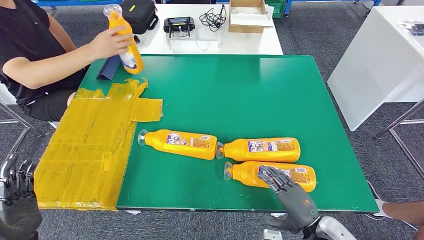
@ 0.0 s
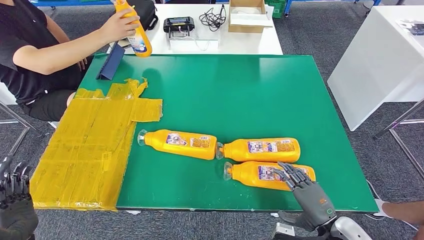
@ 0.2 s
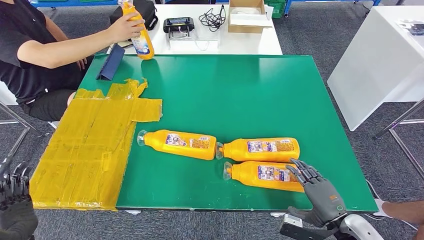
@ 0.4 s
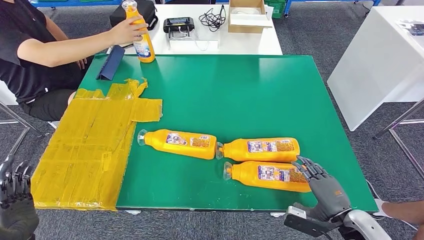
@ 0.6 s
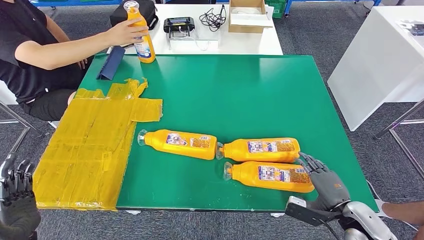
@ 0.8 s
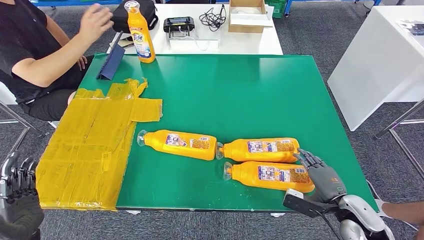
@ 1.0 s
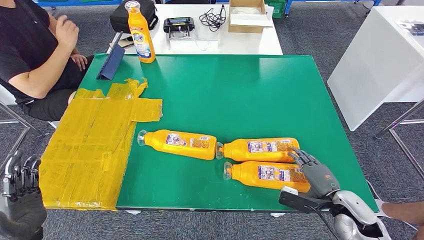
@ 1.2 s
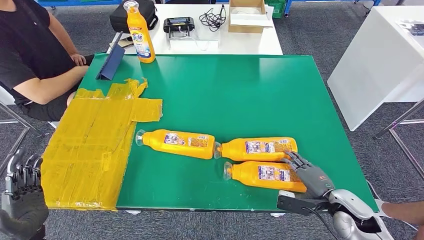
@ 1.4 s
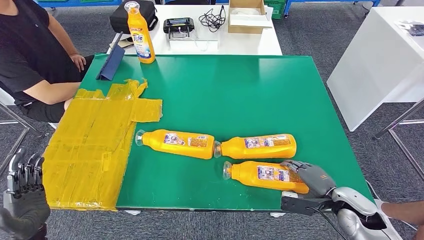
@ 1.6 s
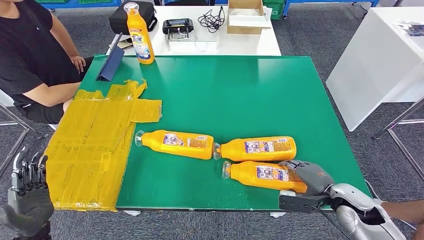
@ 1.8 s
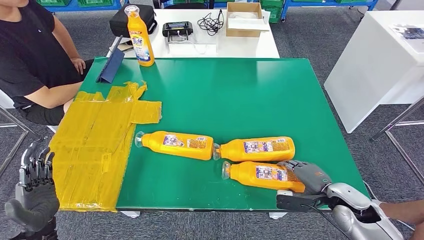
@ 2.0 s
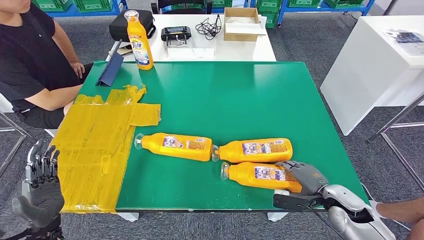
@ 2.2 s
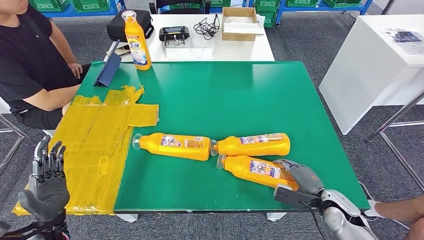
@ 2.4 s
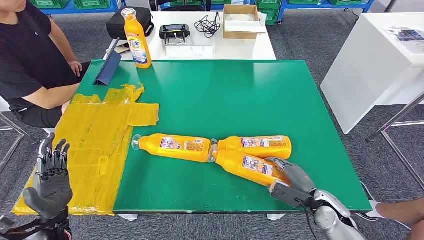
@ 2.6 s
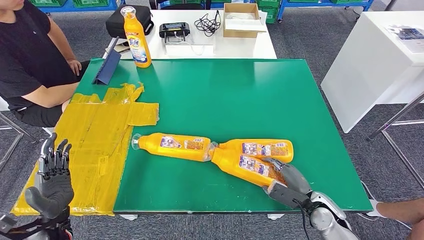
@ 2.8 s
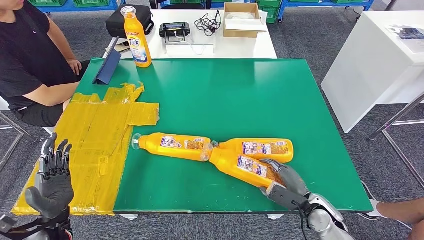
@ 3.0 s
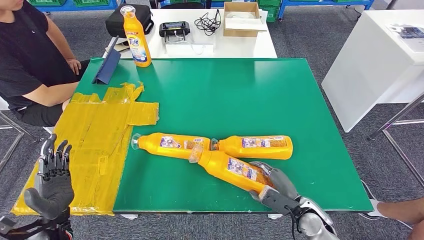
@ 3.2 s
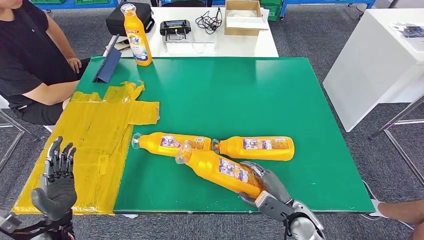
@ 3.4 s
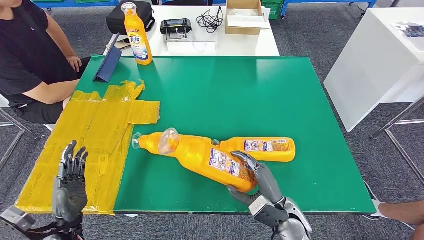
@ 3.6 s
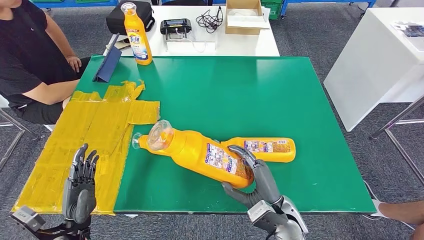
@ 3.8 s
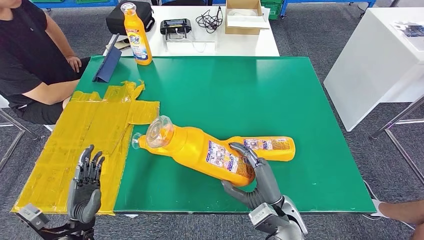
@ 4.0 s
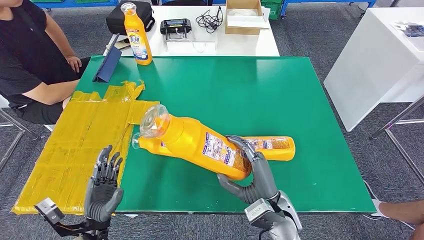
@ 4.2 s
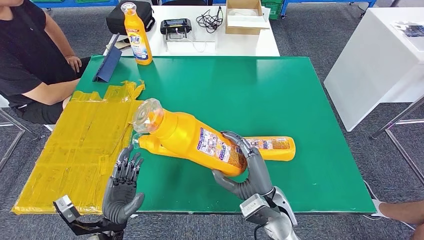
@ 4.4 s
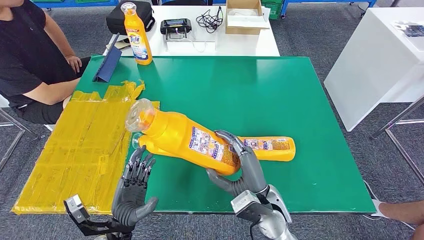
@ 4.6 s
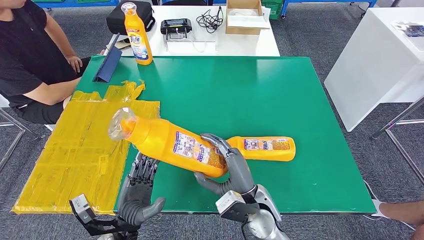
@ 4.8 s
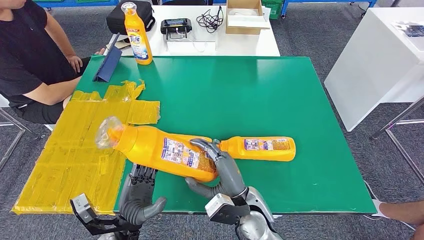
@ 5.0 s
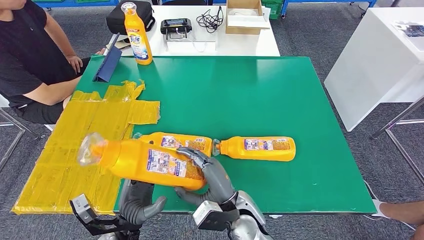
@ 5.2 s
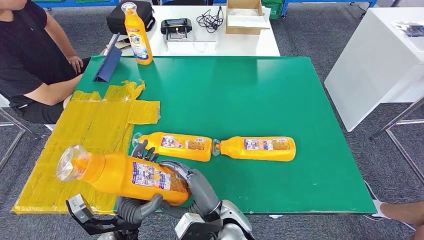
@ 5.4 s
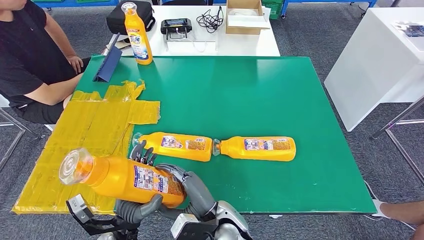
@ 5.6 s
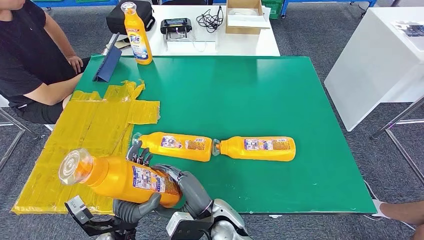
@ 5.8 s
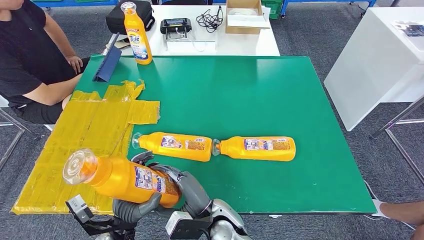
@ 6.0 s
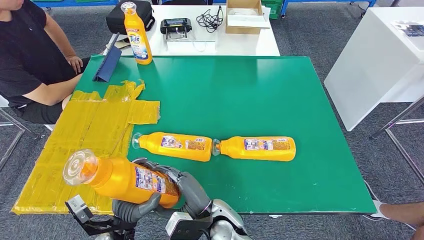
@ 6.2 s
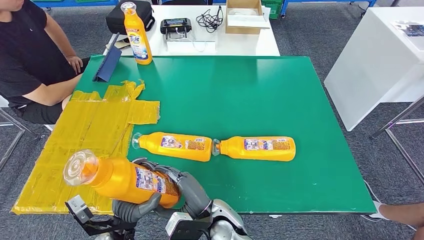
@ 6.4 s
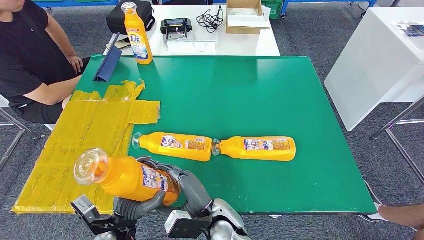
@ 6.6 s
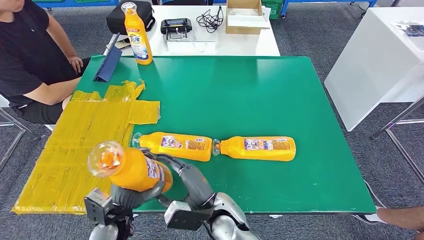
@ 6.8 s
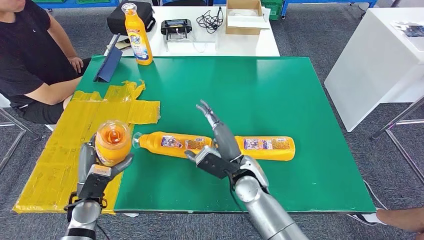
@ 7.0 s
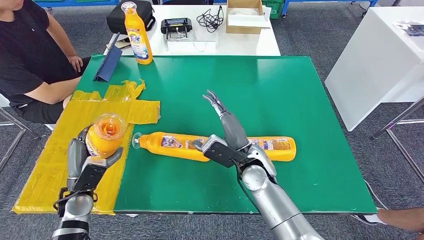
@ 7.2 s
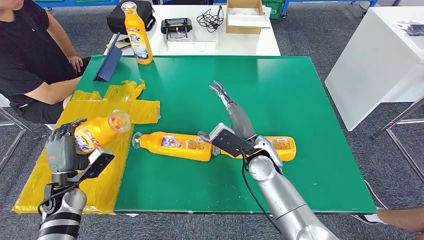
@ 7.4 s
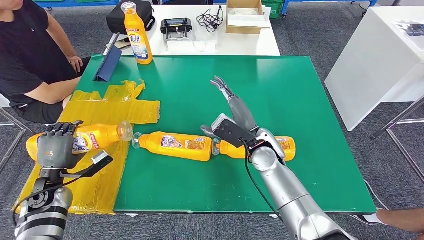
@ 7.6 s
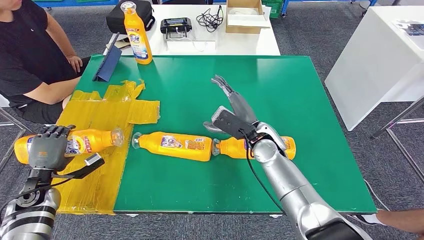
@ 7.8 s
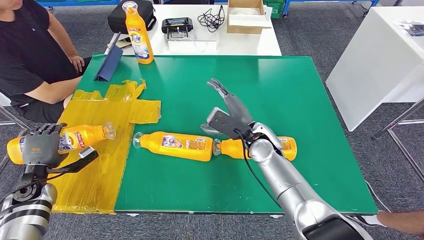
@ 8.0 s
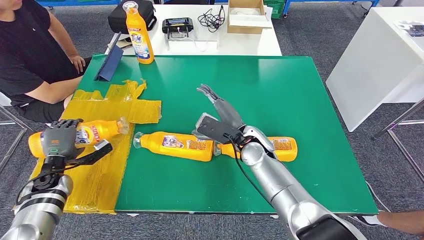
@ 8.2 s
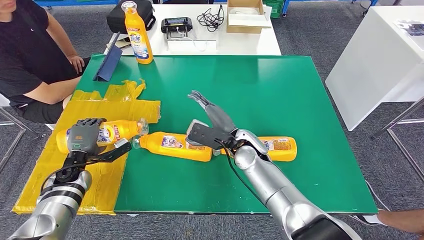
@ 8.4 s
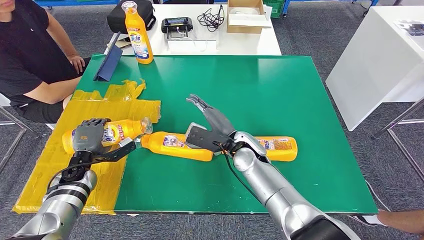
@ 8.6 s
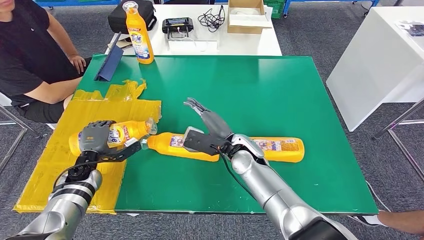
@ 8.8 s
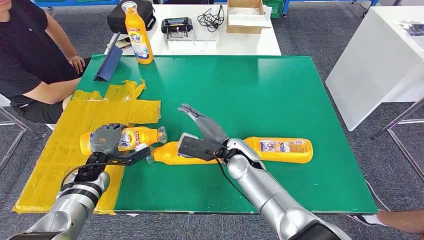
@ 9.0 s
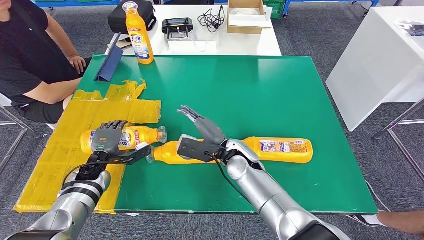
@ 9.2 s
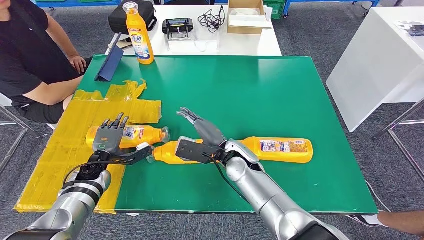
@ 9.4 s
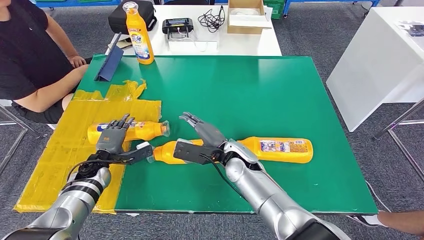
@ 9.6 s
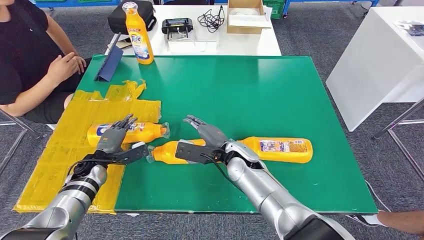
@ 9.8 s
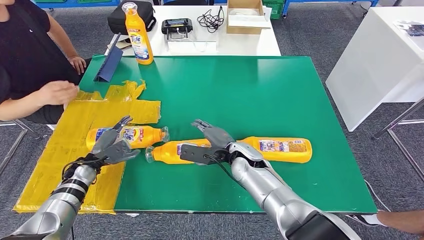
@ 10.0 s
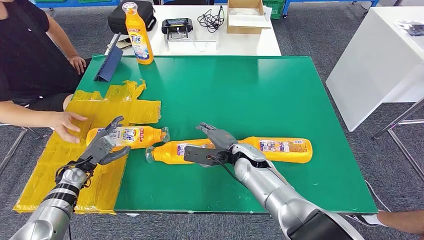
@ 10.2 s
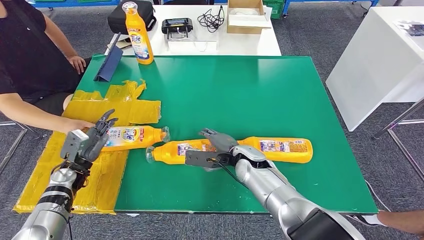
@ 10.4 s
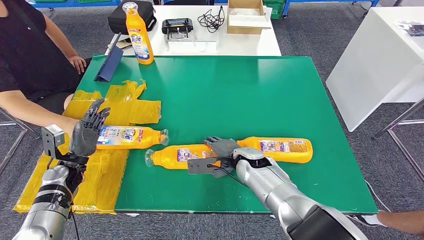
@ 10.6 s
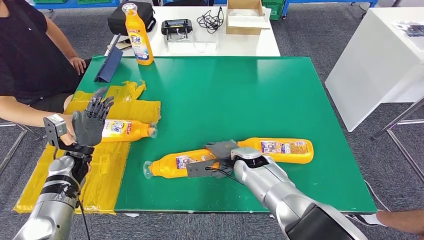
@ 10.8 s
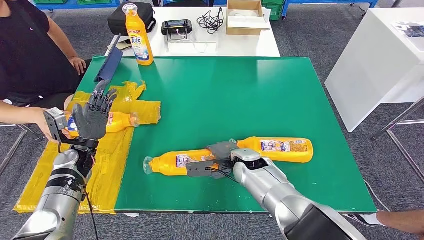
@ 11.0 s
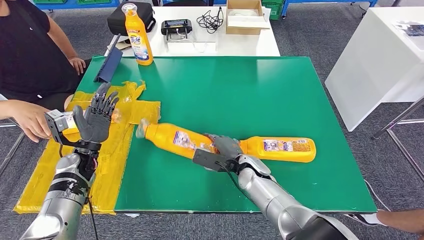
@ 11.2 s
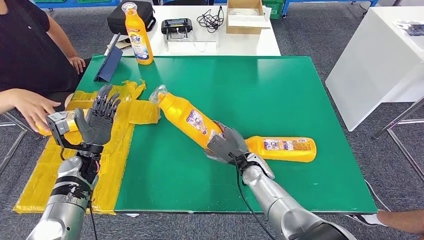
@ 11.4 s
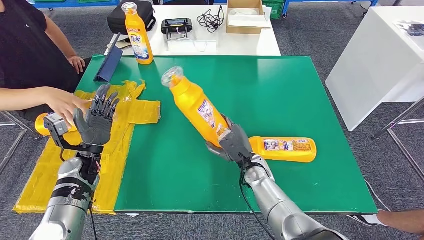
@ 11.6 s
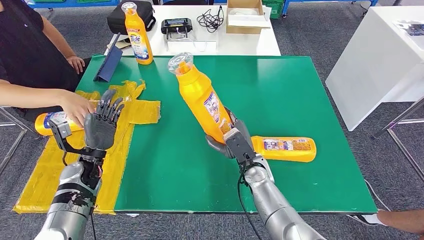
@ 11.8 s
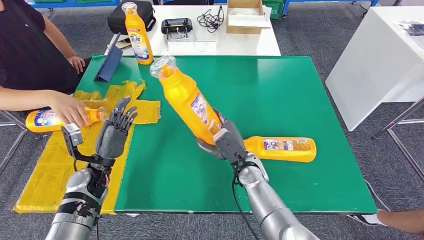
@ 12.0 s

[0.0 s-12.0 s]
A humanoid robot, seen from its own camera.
Step, 0.0 to 5.4 s: Pick up the fast-moving consumer goods bottle from the table.
Step, 5.6 to 10.4 s: Flip the fast-moving consumer goods bottle to the front side.
0.0 to 1.6 s: The right hand goes about 10 cm forward and to the right.
4.4 to 6.0 s: The right hand shifts approximately 10 cm to the left.
9.0 to 10.4 s: The left hand moves to the left, approximately 5 cm.

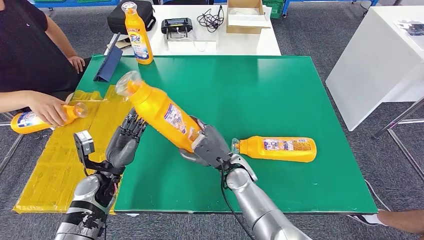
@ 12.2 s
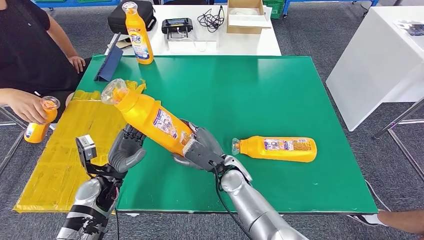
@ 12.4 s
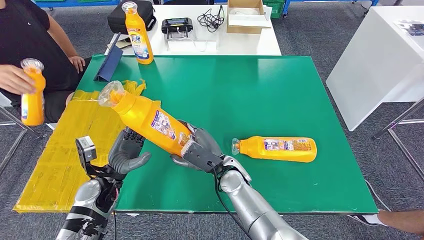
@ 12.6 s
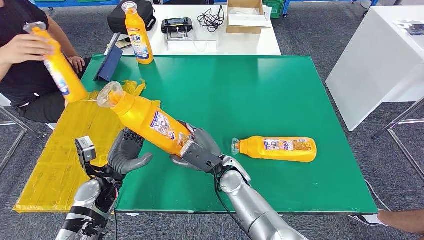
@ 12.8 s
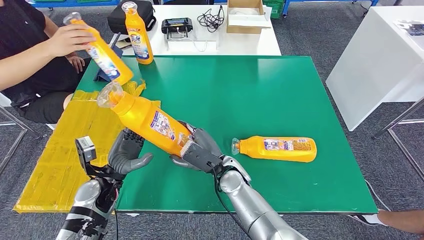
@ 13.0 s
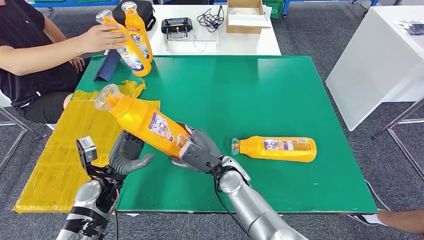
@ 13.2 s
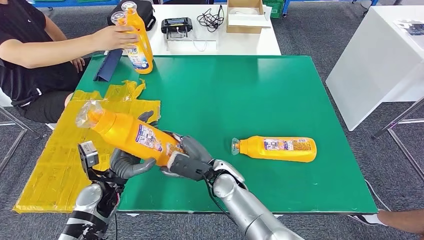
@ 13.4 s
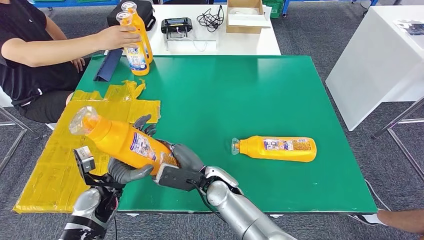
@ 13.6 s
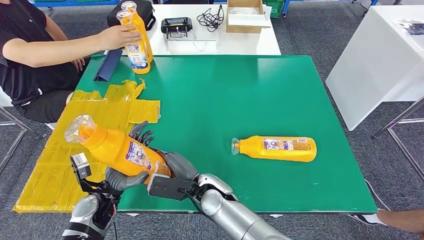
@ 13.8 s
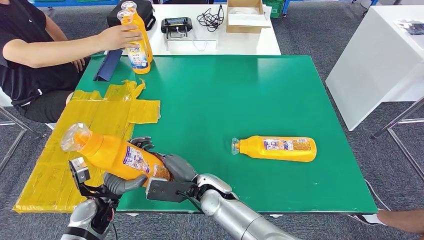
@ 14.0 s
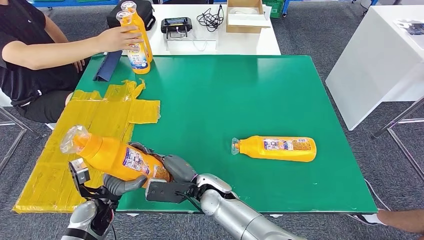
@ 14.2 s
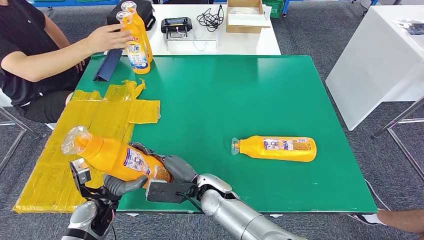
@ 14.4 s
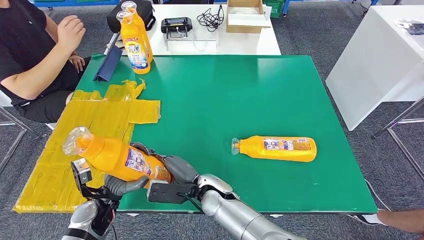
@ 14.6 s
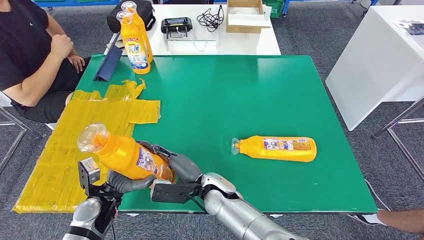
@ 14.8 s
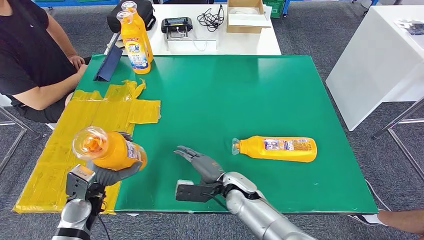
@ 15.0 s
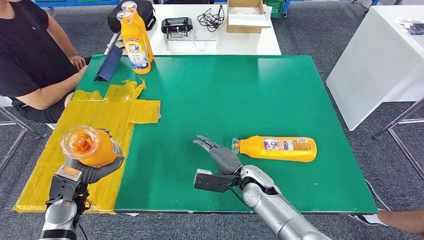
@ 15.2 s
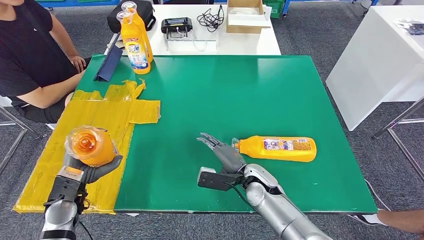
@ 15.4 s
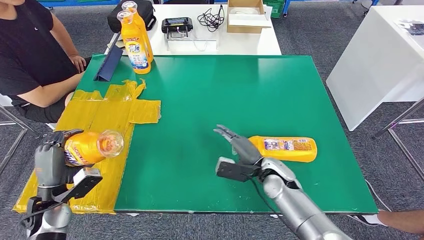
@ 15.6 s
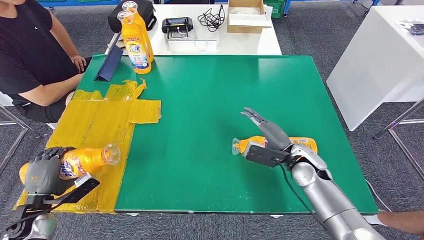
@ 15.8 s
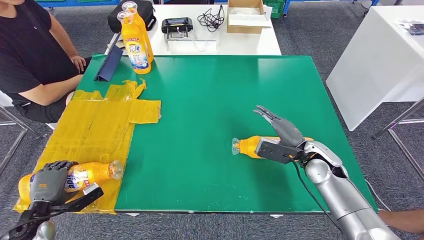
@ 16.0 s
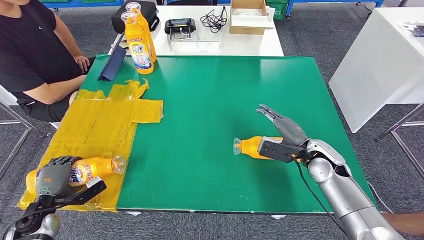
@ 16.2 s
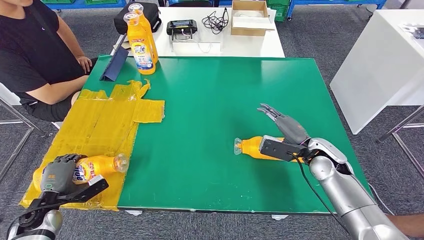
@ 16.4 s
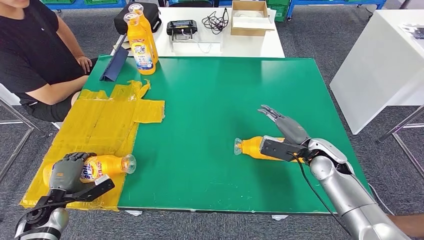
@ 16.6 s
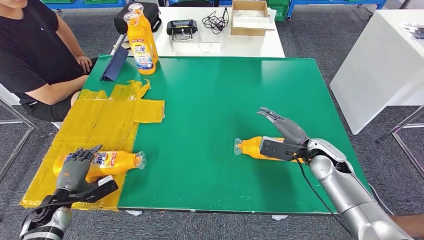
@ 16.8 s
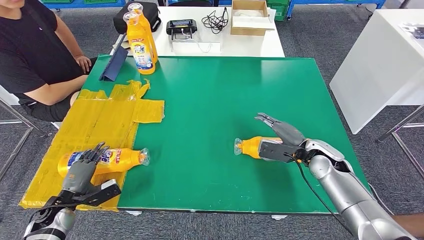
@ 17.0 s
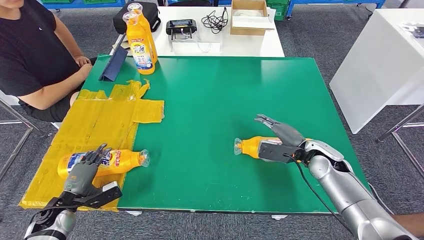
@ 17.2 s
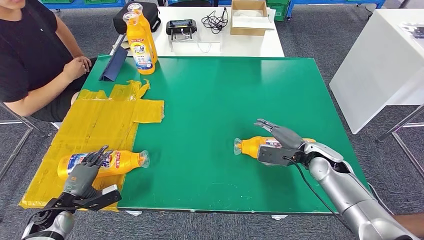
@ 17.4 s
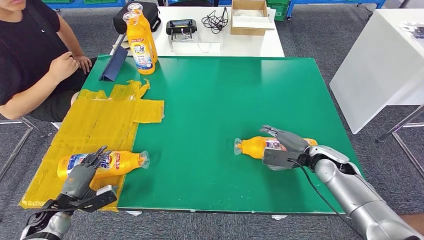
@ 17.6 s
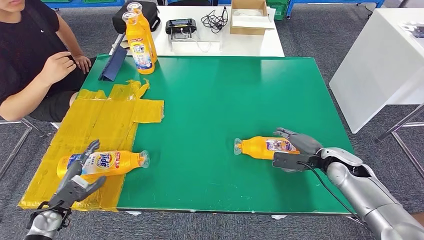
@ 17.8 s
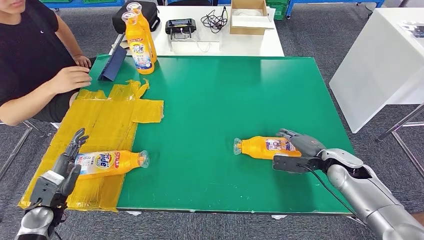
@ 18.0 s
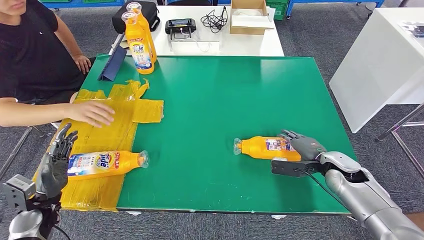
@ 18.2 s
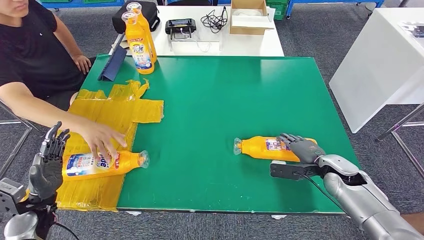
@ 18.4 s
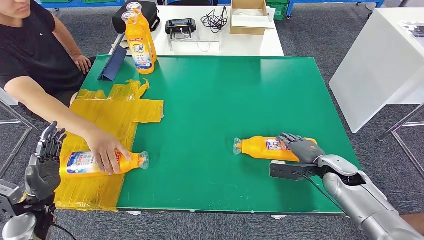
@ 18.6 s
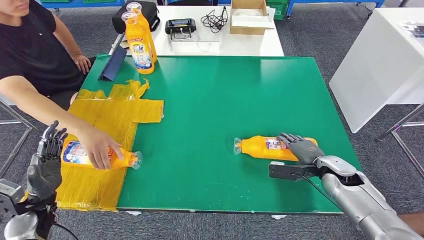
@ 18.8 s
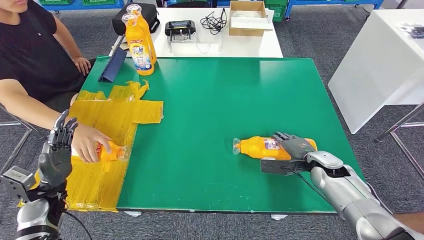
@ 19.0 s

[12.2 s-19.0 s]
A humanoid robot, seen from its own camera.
Step, 12.2 to 14.0 s: Pick up the fast-moving consumer goods bottle from the table.
Step, 14.2 to 18.0 s: Flip the fast-moving consumer goods bottle to the front side.
13.6 to 15.0 s: The right hand travels to the right by some 5 cm.
